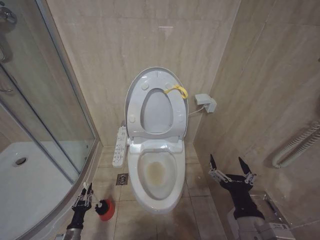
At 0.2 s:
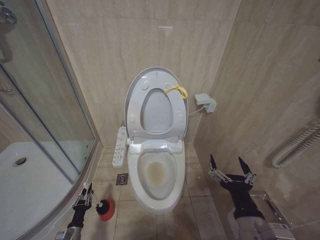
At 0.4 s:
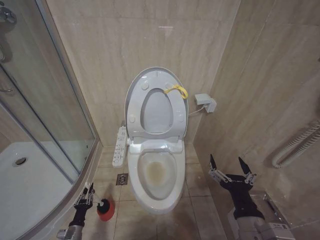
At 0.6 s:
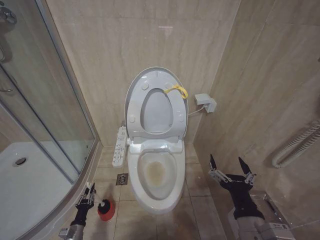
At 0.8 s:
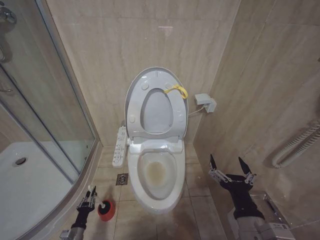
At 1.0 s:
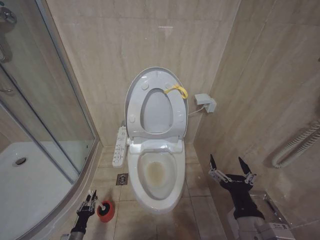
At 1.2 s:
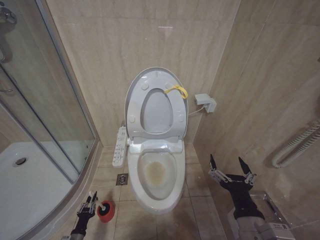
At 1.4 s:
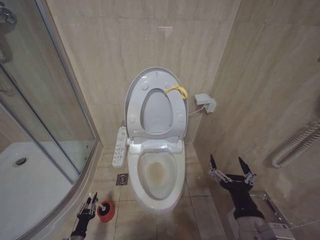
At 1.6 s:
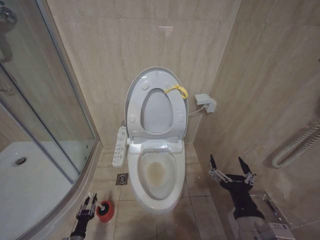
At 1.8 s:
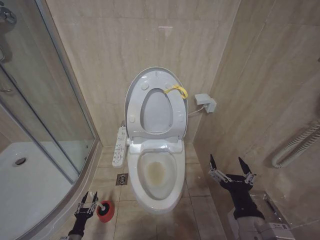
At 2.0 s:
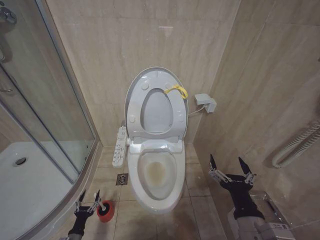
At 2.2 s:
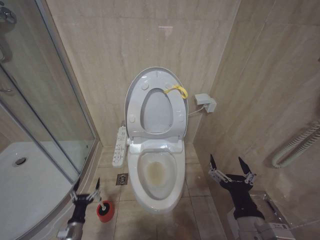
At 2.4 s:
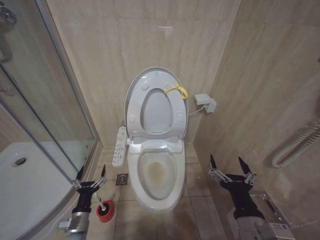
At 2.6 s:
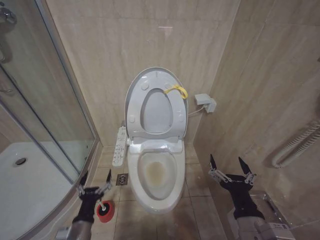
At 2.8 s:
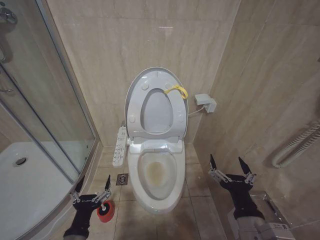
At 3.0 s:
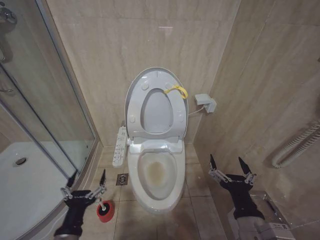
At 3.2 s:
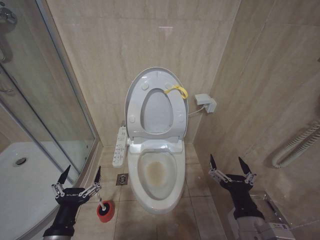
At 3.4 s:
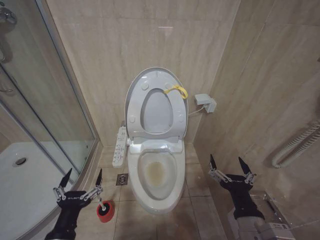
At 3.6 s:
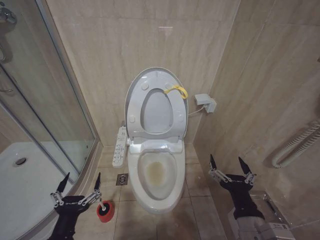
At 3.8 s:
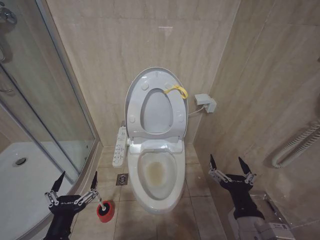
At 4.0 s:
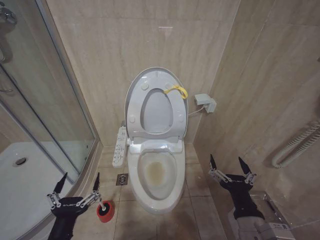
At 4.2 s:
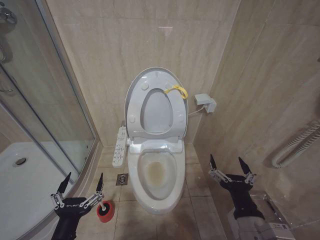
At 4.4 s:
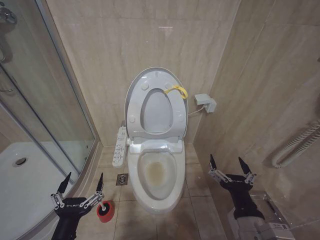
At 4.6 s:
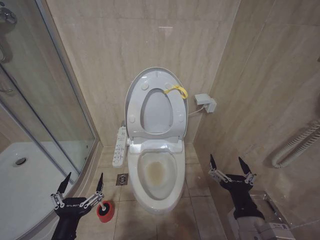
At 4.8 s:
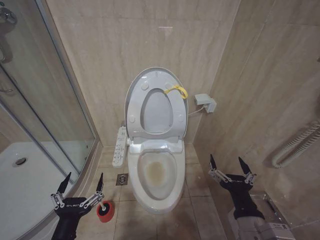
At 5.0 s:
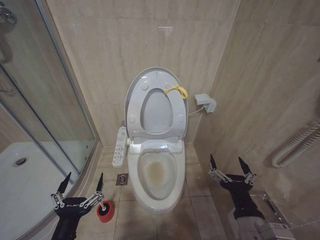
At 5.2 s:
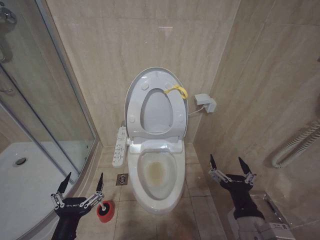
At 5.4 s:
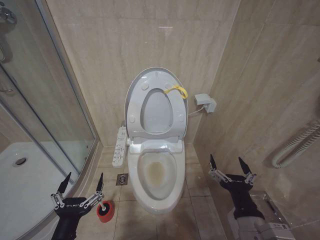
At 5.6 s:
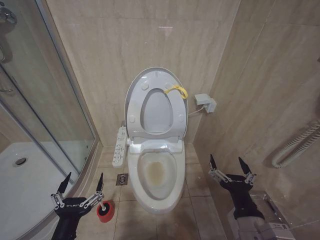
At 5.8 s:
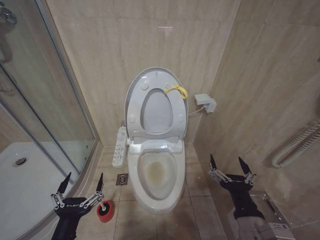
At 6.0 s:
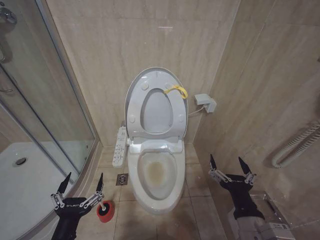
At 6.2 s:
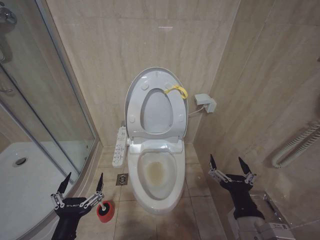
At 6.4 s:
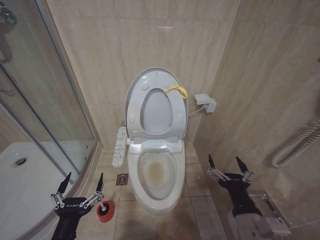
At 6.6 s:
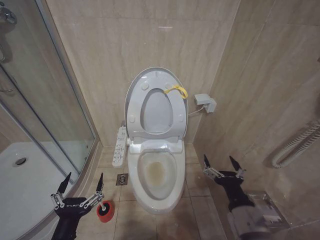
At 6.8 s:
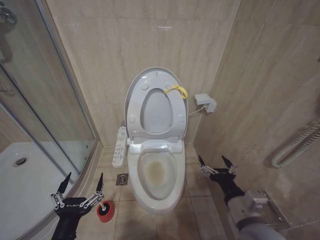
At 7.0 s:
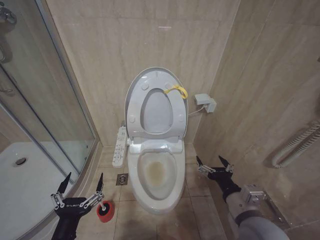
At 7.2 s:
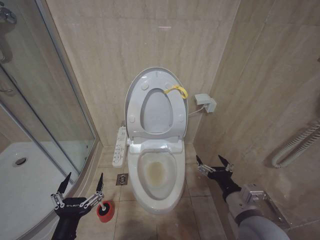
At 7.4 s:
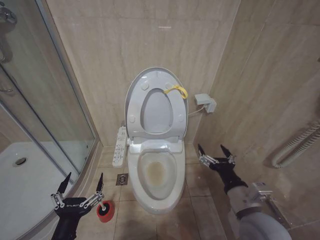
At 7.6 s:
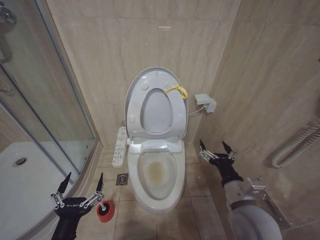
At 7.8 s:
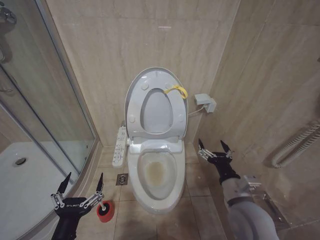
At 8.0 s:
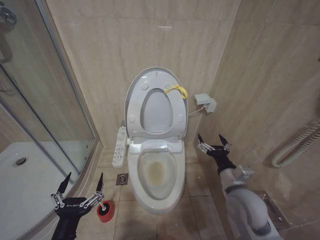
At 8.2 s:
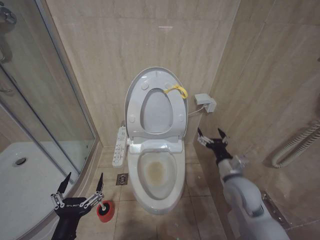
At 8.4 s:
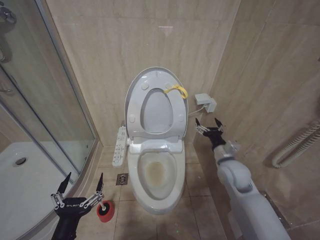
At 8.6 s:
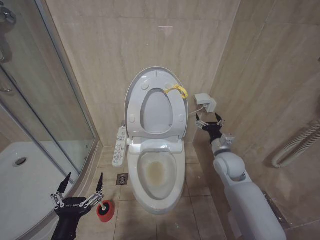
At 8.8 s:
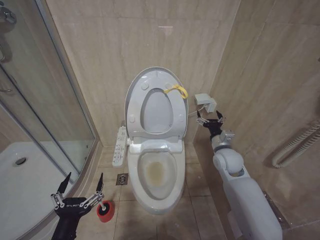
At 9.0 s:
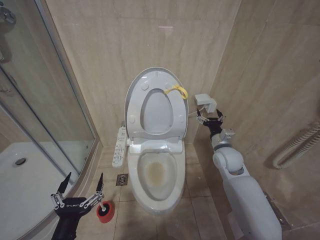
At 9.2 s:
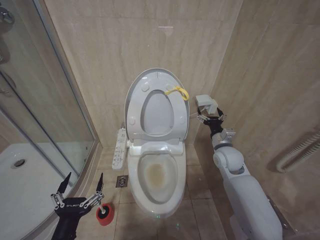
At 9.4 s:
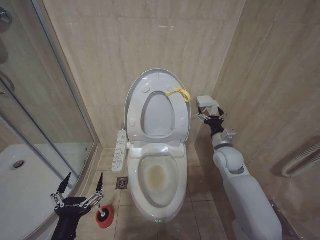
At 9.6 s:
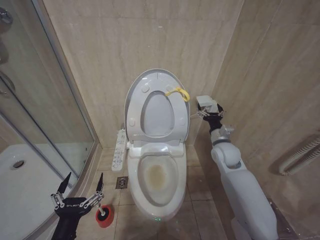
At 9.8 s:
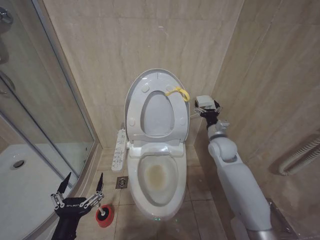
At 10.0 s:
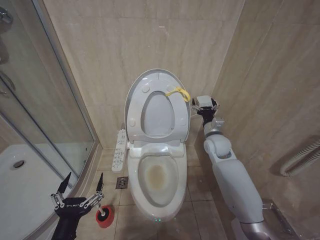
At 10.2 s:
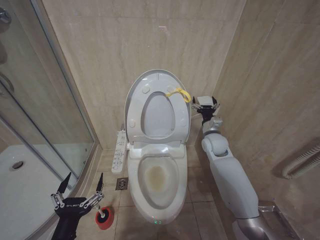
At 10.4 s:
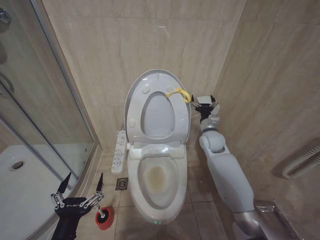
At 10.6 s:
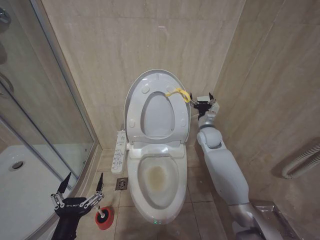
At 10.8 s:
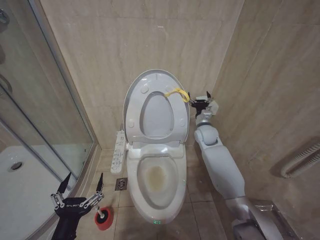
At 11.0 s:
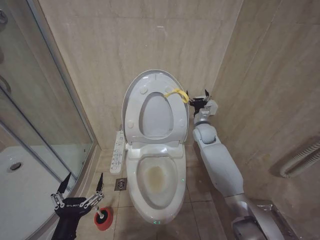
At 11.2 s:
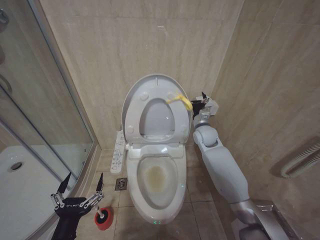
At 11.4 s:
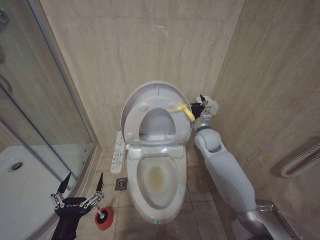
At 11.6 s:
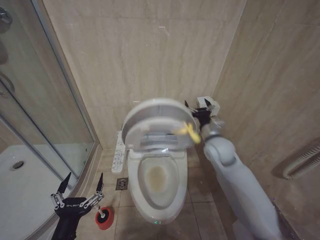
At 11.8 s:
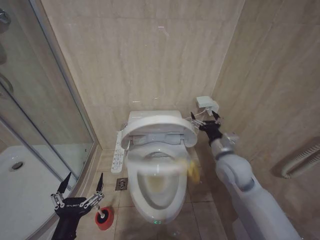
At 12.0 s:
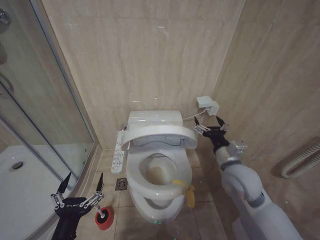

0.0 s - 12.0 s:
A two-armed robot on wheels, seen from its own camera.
Task of the whole recording: Open the toilet lid, clean the toilet bowl with a toilet brush, close the toilet lid, and flush.
0.0 s - 1.6 s: The left gripper goes approximately 5 cm downward.
1.6 s - 3.0 s: The left gripper heads upward and to the right, covering some 35 cm, and opens up.
3.0 s - 4.4 s: The left gripper ends up approximately 5 cm from where it was.
4.4 s - 6.0 s: The two grippers keep their place.
6.0 s - 7.6 s: The right gripper moves forward, roughly 10 cm.
7.6 s - 9.0 s: The right gripper is displaced forward by about 20 cm.
9.0 s - 10.4 s: The right gripper shifts some 10 cm forward.
10.4 s - 12.0 s: The right gripper heads backward, covering about 20 cm.

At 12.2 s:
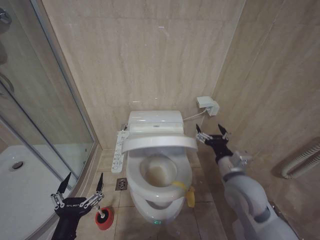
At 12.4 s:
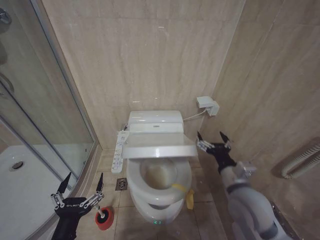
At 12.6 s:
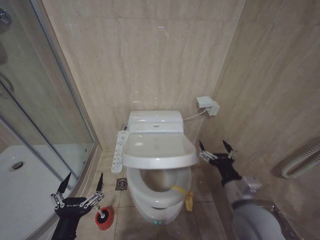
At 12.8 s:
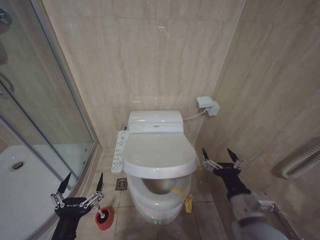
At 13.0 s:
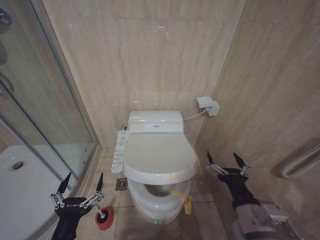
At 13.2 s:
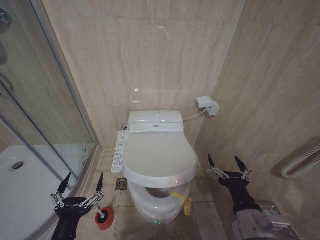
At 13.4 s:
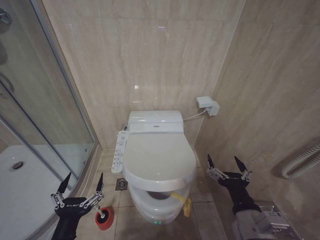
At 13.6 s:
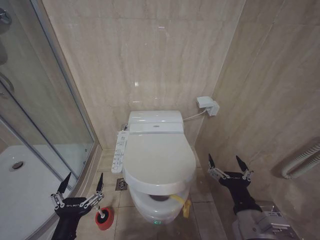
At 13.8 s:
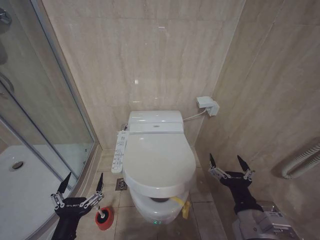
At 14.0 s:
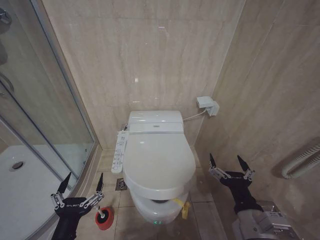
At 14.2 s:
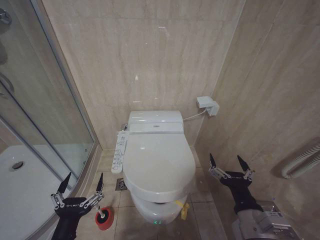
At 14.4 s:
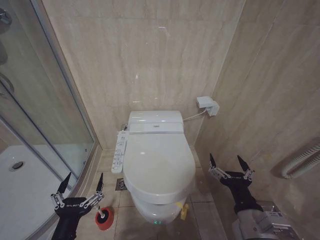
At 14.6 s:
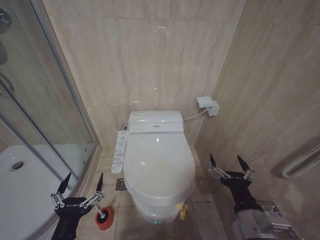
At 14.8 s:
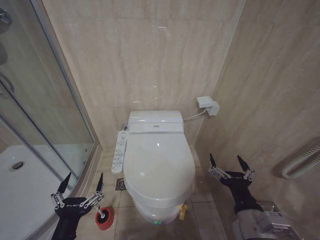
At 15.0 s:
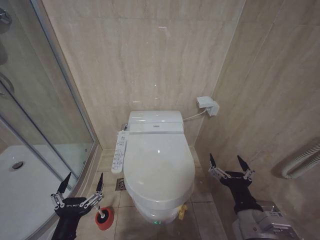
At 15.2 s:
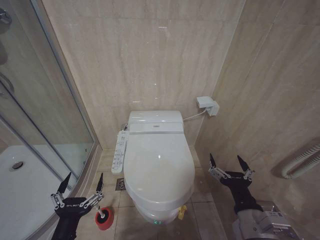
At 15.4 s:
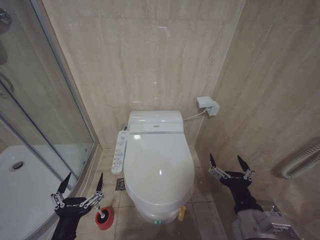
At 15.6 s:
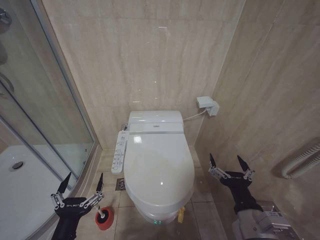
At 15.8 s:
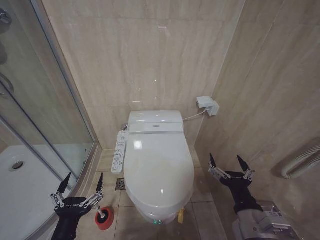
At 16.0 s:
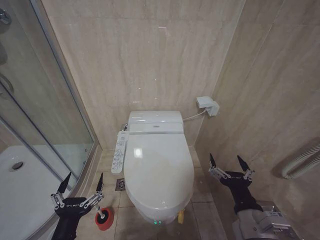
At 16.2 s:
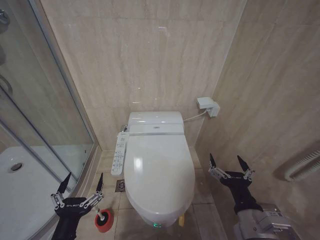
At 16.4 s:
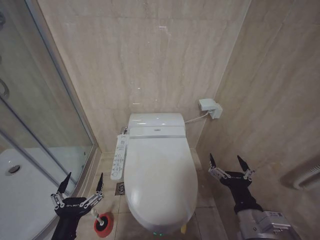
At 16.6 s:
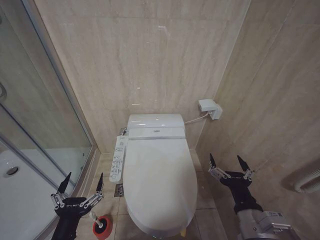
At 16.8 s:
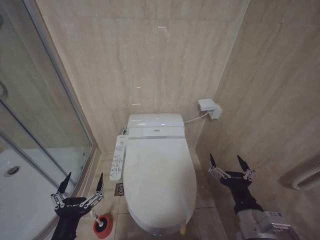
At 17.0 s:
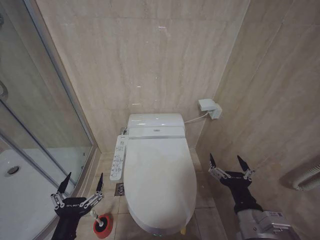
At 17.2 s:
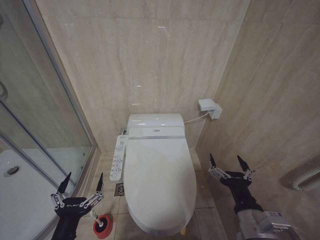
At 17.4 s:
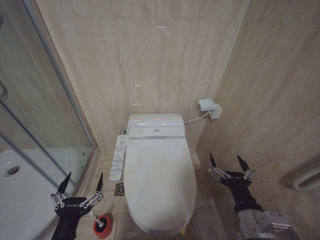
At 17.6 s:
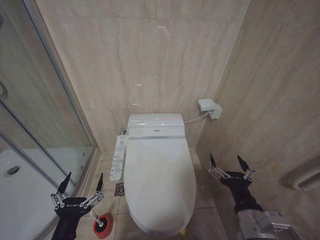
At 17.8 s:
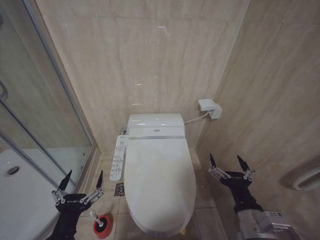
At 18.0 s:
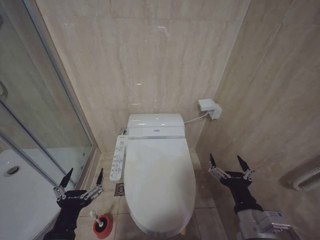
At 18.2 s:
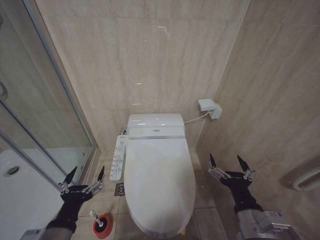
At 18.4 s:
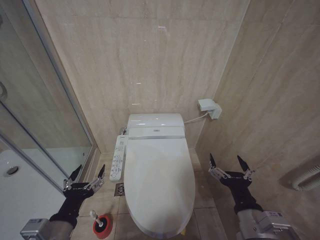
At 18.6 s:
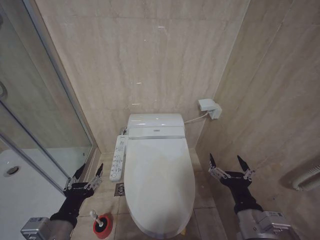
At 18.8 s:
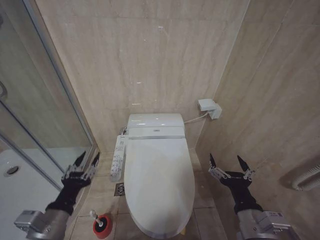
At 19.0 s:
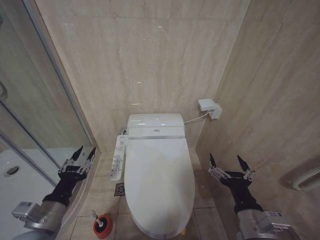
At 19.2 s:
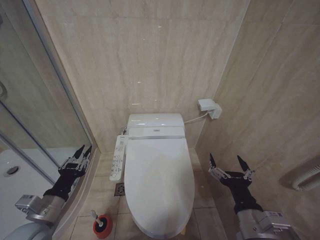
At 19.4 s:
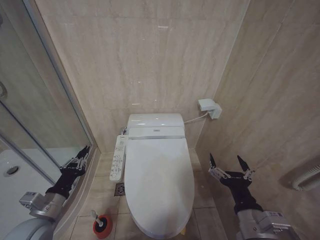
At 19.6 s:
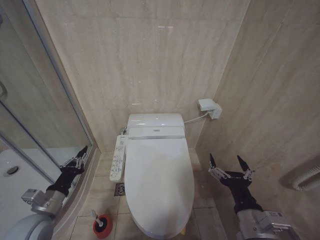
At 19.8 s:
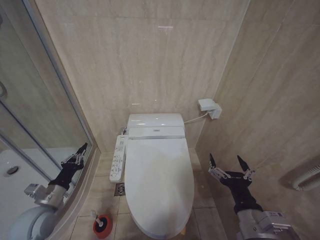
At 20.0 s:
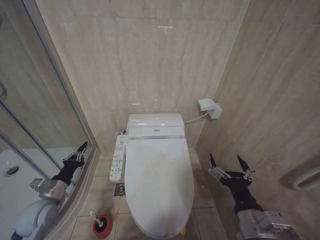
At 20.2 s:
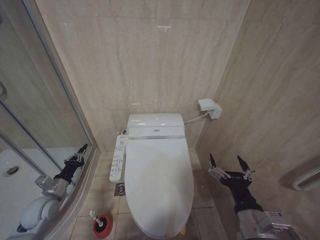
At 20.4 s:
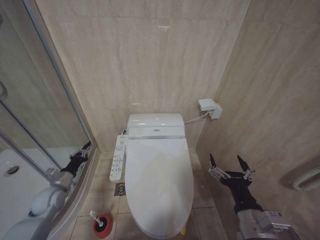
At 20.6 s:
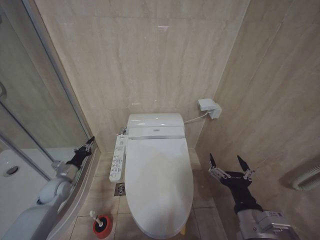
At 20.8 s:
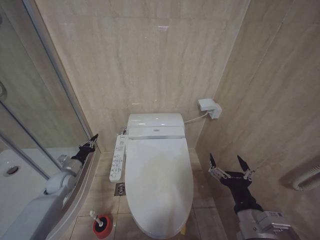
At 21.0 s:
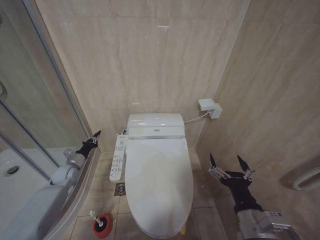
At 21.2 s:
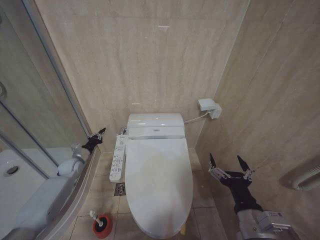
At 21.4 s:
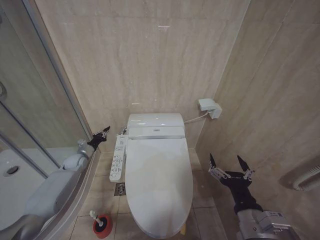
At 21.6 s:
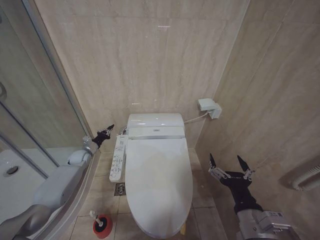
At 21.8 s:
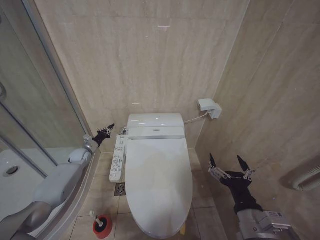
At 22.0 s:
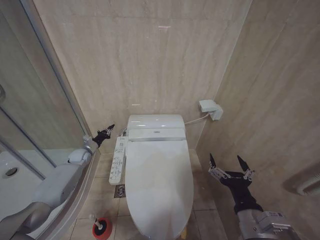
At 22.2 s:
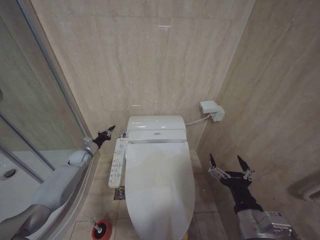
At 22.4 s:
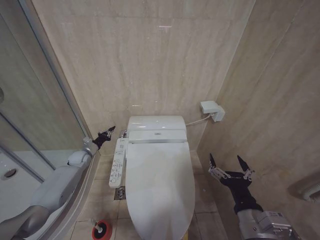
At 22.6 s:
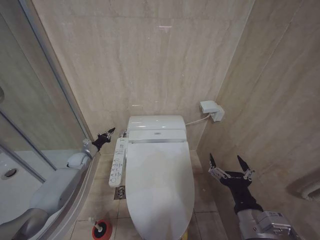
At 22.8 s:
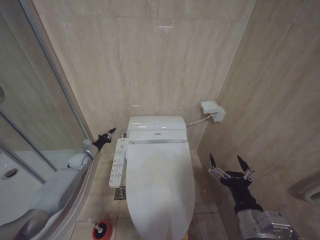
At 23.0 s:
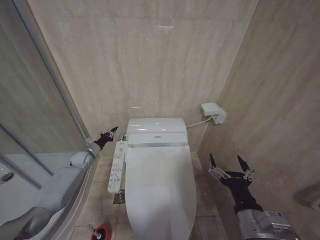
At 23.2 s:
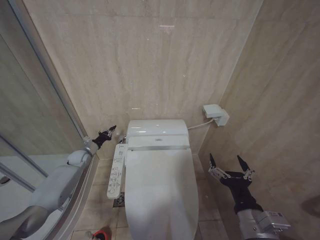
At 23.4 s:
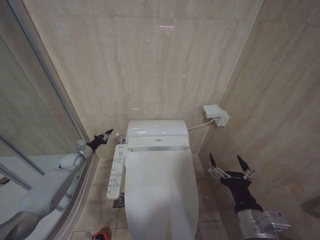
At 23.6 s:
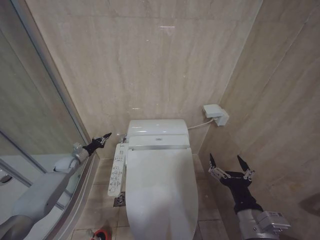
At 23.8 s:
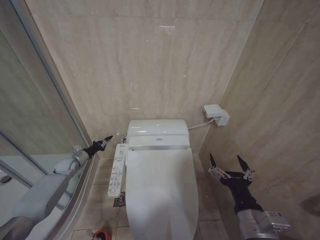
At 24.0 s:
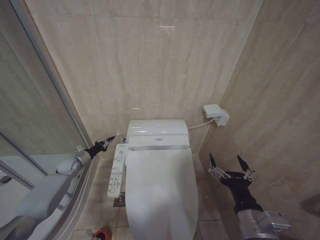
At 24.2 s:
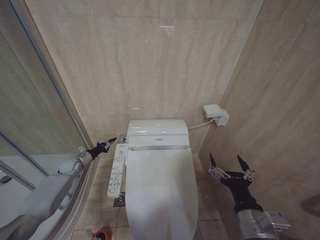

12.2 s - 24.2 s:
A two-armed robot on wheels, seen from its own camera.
Task of the whole recording: Open the toilet lid, clean the toilet bowl with a toilet brush, close the toilet lid, and flush.
12.2 s - 13.8 s: The right gripper shifts some 15 cm backward.
13.8 s - 16.6 s: Neither gripper changes place.
16.6 s - 18.2 s: There are only small adjustments of the grippers.
18.2 s - 19.8 s: The left gripper heads forward and to the left, covering approximately 15 cm, and closes its fingers.
19.8 s - 21.2 s: The left gripper travels forward by roughly 25 cm.
21.2 s - 22.6 s: The left gripper shifts about 5 cm forward.
22.6 s - 24.2 s: The left gripper changes place by some 5 cm.
